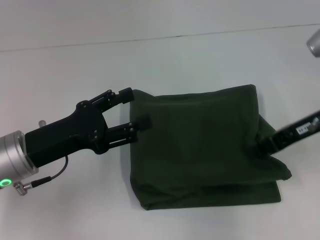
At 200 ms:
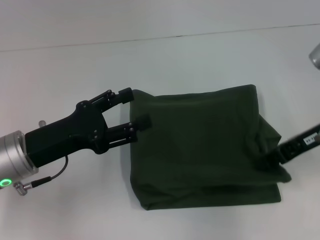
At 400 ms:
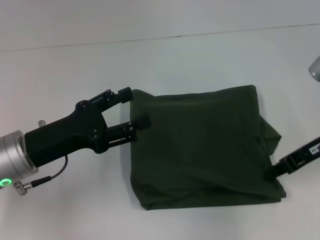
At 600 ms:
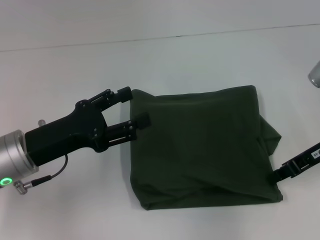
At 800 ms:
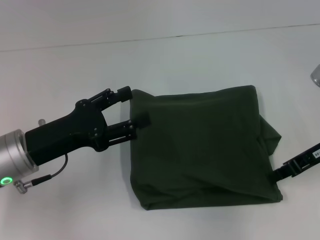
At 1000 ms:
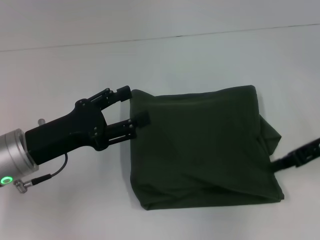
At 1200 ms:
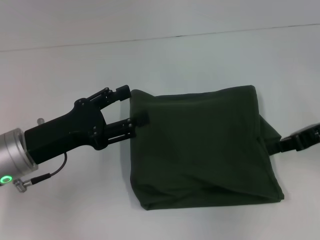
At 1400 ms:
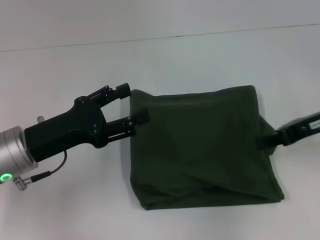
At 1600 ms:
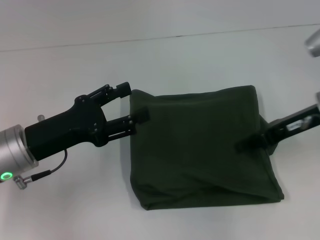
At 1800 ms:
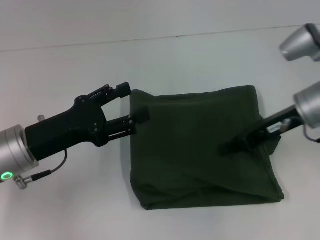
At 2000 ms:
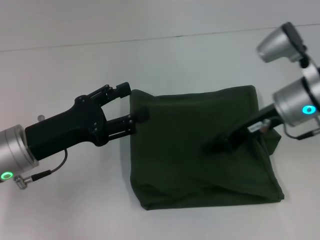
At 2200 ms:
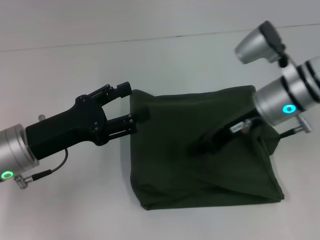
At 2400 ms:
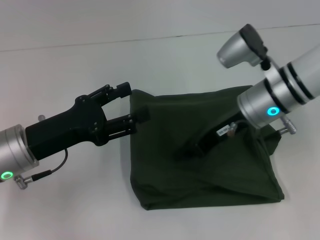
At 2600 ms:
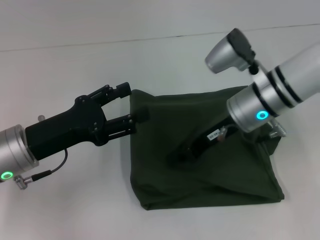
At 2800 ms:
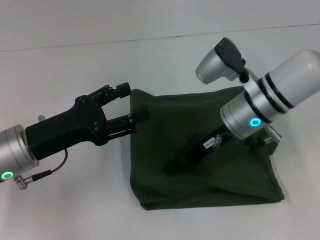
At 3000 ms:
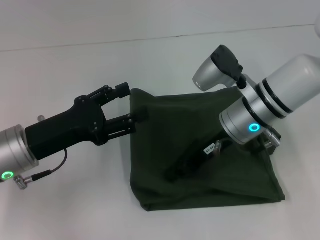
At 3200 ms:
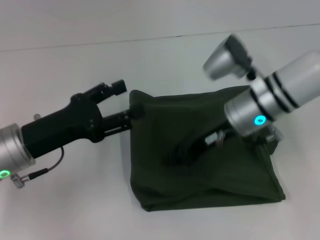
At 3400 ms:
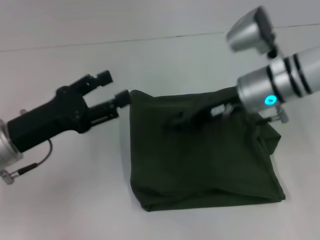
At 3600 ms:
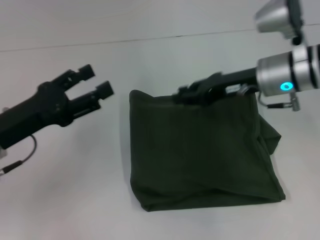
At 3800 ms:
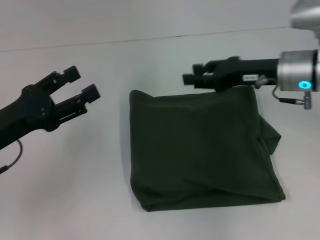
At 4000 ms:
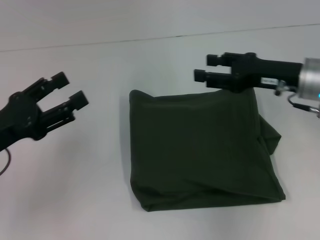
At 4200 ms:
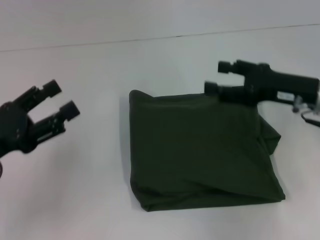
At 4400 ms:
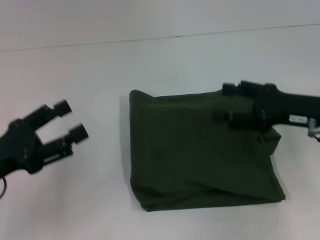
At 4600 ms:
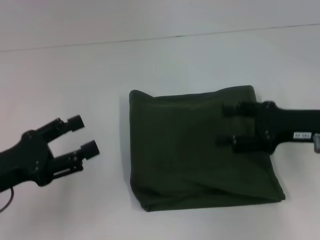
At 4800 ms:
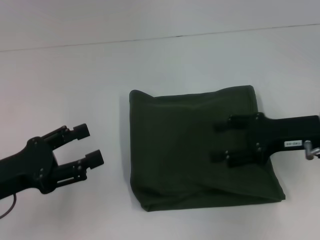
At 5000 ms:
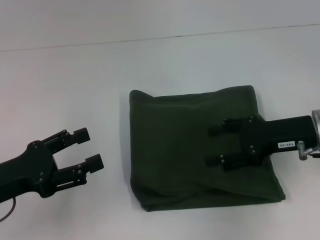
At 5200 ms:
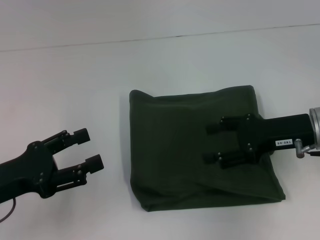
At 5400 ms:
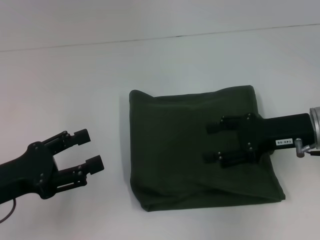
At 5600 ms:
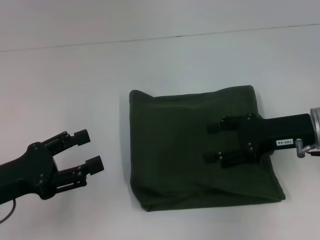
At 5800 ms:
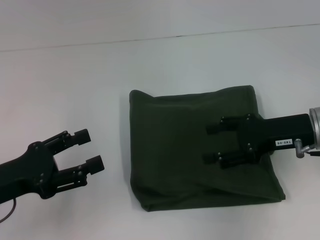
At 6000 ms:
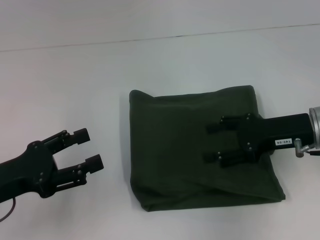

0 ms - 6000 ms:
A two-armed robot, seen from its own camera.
0 ms - 1600 ms: The grippers stay close to where they were, moving slightly.
1600 ms - 3000 ms: The right gripper shifts roughly 15 cm to the left.
3000 ms - 4400 ms: The left gripper goes approximately 5 cm to the left; the right gripper is displaced to the right and backward by roughly 15 cm, and opens up.
4400 ms - 6000 ms: The grippers move only a little.

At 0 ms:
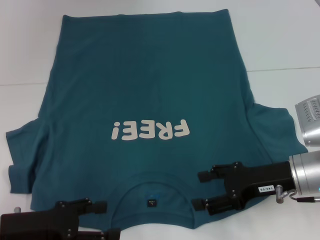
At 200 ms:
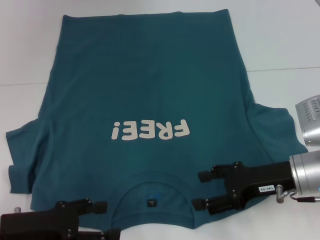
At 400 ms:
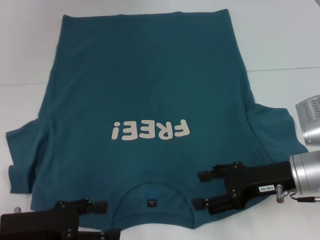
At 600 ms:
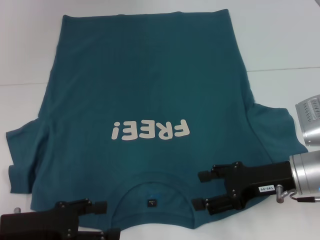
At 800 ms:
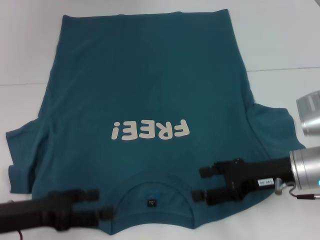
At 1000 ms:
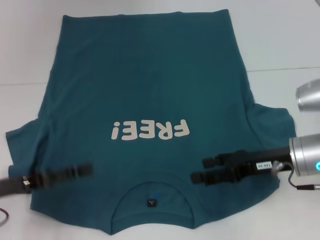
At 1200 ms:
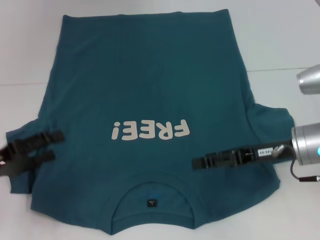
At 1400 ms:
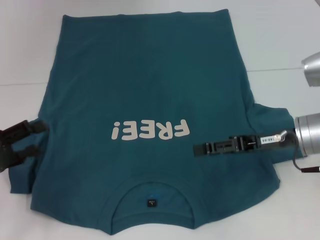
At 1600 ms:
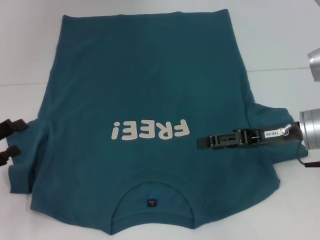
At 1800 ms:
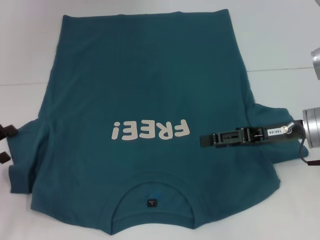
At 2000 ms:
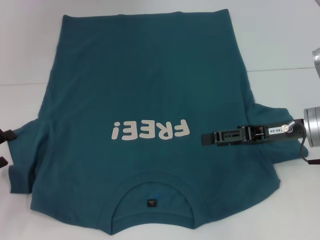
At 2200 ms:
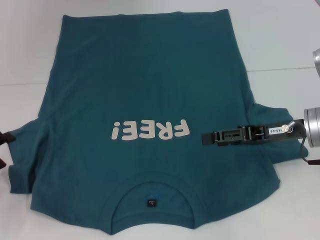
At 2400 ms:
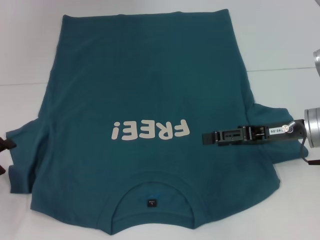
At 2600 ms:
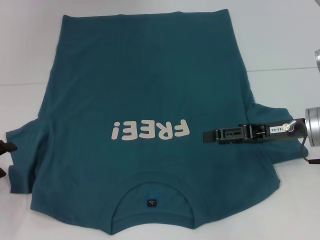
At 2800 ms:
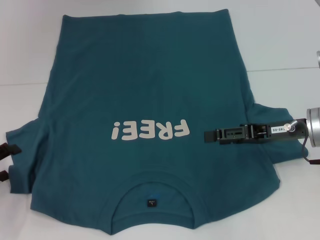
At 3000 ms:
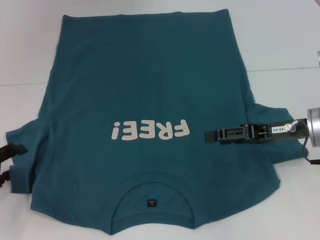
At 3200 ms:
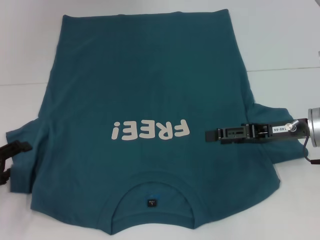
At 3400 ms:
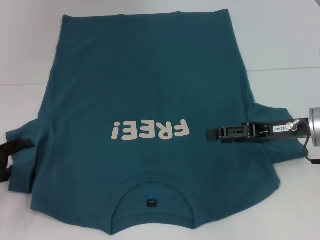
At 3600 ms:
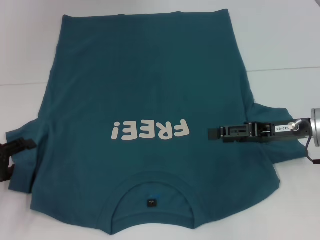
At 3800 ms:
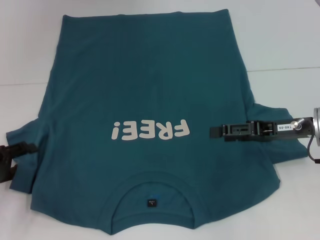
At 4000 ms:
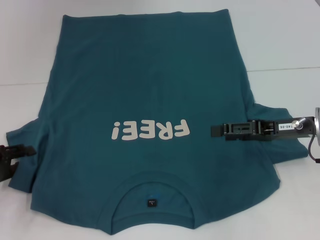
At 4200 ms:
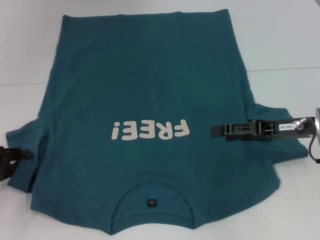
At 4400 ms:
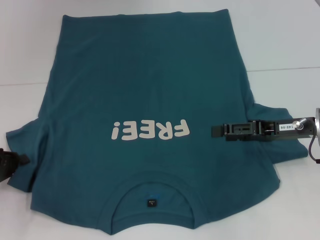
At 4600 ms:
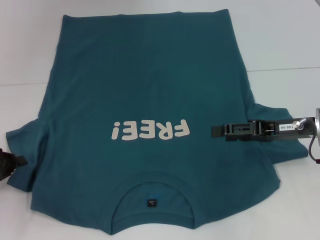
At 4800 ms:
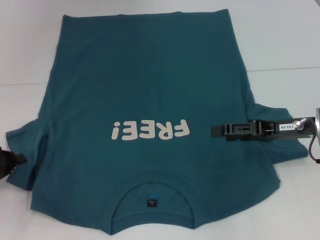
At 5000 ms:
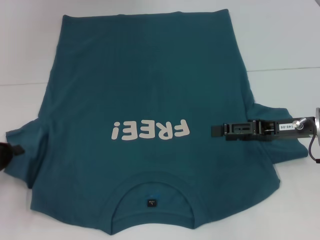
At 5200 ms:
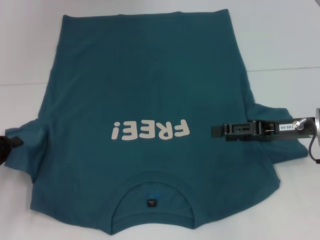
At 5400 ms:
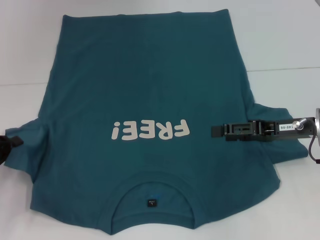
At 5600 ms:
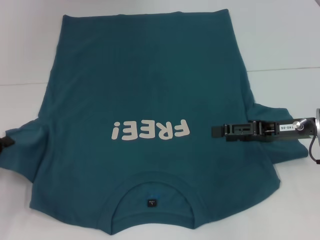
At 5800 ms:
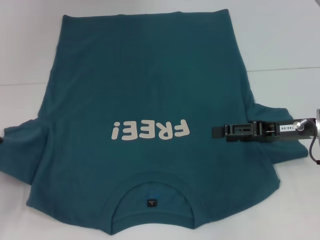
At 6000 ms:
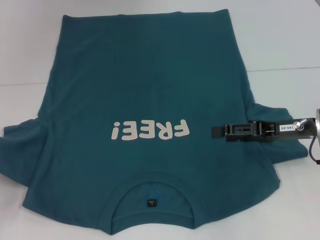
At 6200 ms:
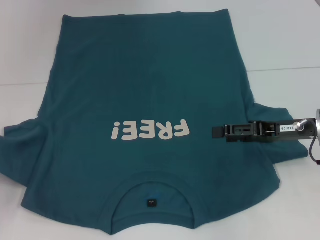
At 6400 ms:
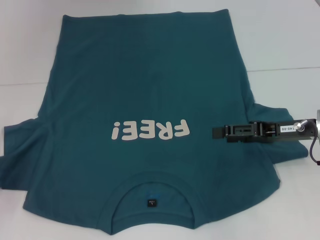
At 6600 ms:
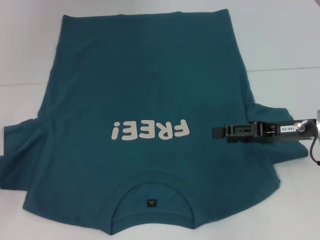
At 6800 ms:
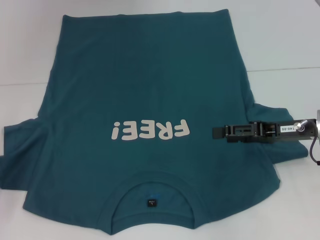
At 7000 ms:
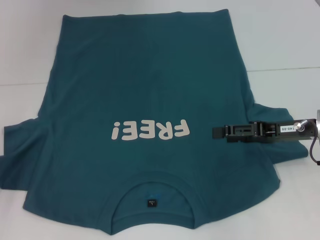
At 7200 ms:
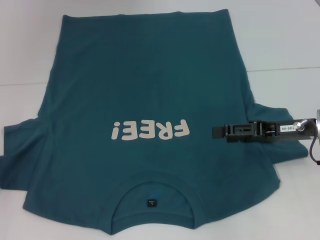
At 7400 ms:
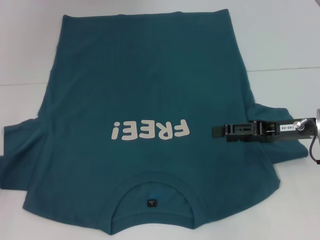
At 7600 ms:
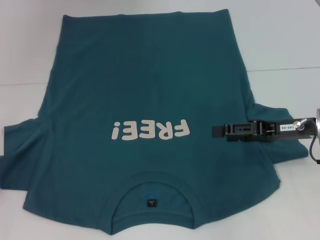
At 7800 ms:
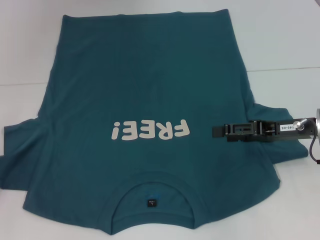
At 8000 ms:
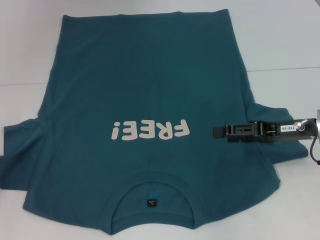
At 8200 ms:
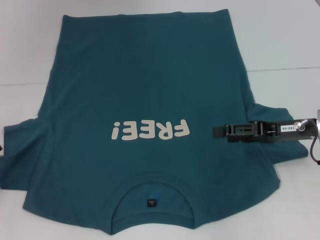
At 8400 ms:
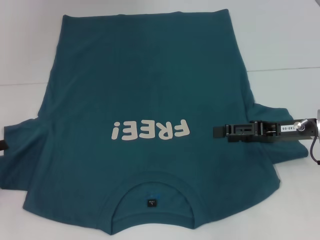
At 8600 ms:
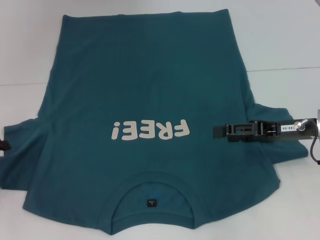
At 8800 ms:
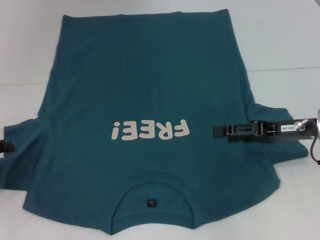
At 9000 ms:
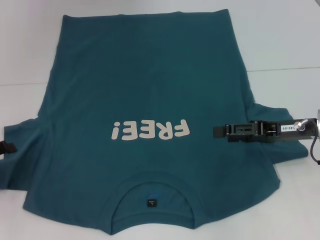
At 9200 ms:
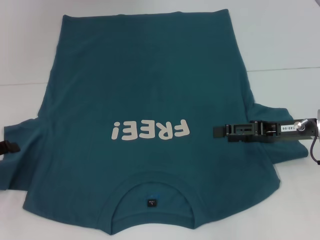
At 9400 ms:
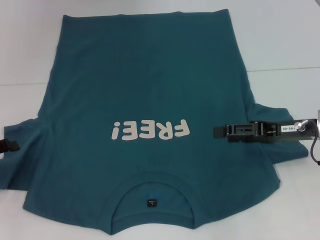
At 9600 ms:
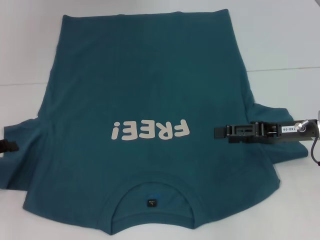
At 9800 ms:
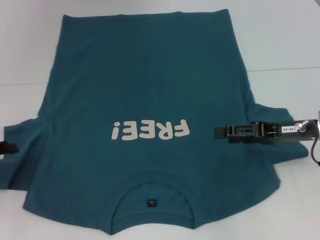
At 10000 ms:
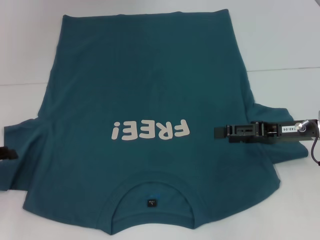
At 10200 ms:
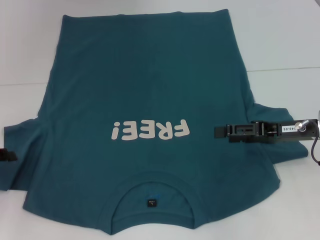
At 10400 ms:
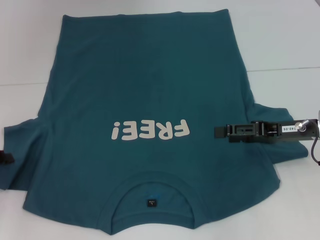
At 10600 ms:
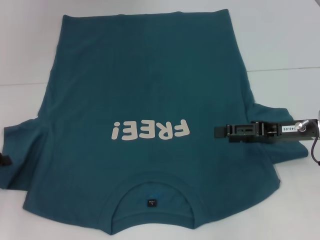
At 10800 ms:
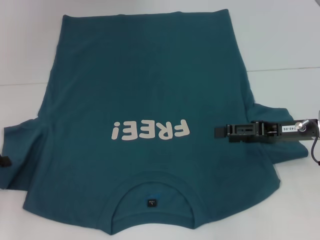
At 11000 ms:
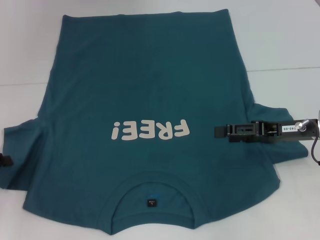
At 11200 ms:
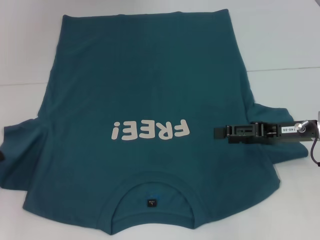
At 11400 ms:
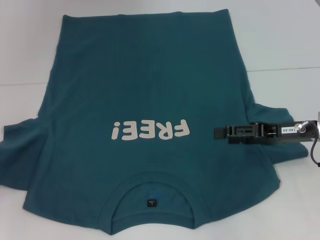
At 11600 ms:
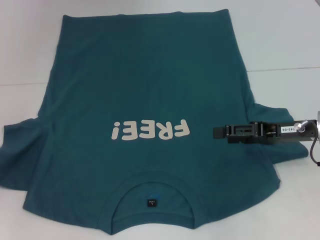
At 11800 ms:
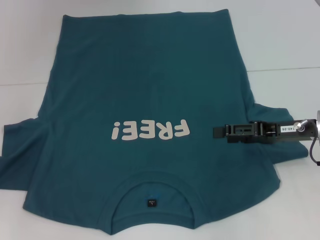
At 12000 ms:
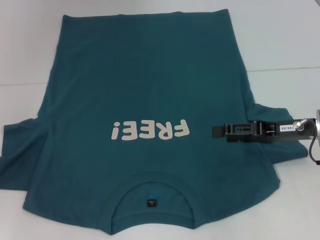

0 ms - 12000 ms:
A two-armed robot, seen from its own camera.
0 ms - 1600 ms: The right gripper ends up approximately 5 cm from where it was; the left gripper heads to the left, covering some 10 cm.
1600 ms - 3000 ms: The grippers make only small movements.
3000 ms - 4400 ms: The left gripper closes up.
4400 ms - 6000 ms: The grippers stay close to where they were, moving slightly.
6000 ms - 7600 ms: The left gripper opens its fingers.

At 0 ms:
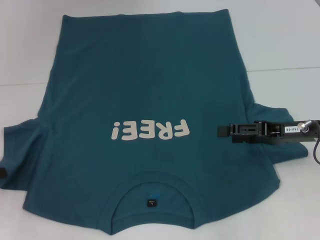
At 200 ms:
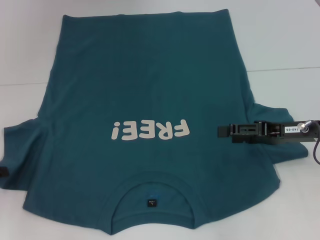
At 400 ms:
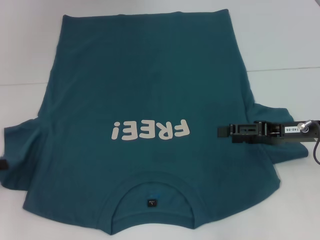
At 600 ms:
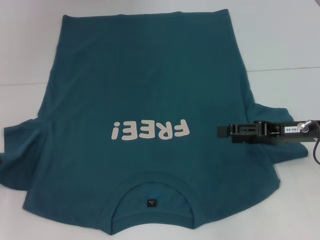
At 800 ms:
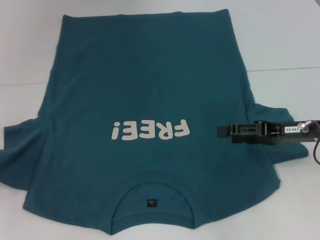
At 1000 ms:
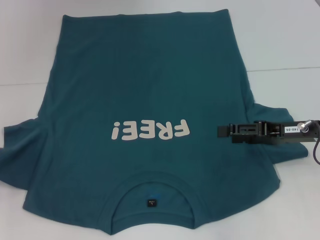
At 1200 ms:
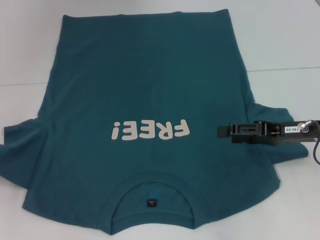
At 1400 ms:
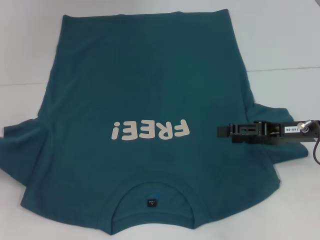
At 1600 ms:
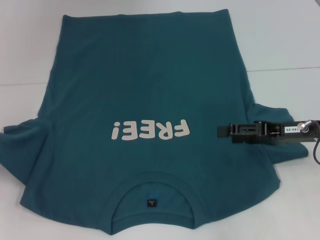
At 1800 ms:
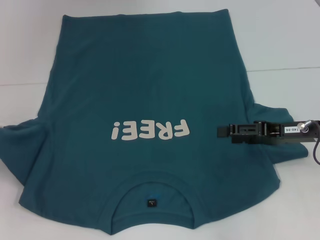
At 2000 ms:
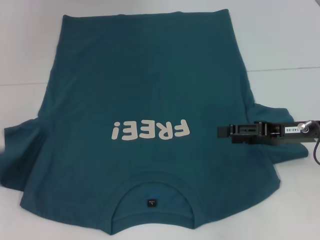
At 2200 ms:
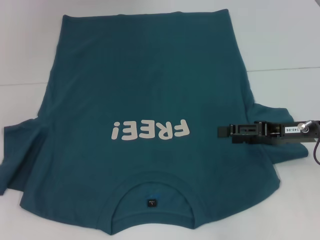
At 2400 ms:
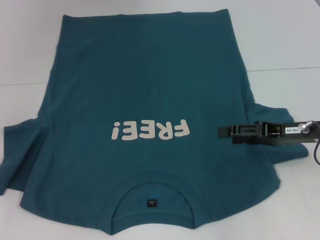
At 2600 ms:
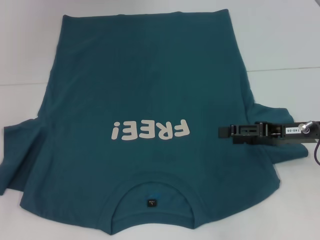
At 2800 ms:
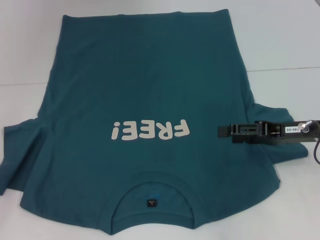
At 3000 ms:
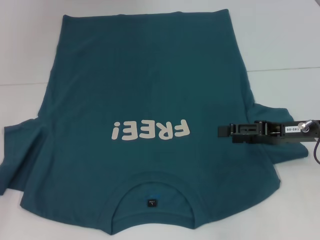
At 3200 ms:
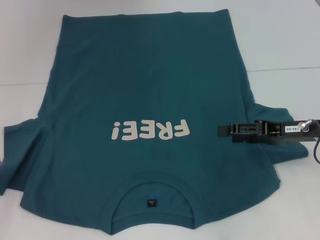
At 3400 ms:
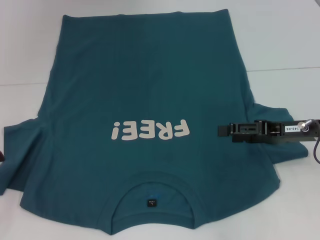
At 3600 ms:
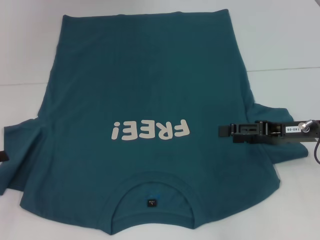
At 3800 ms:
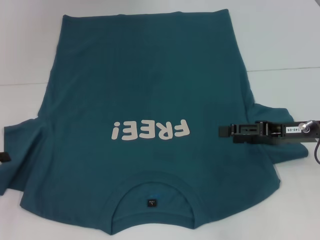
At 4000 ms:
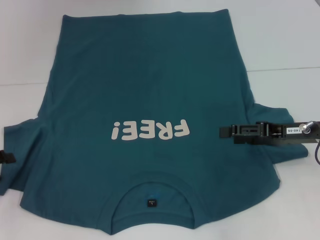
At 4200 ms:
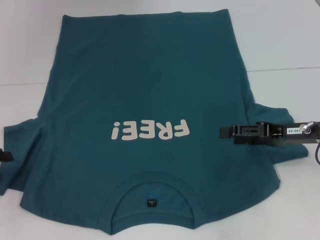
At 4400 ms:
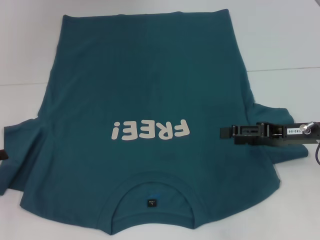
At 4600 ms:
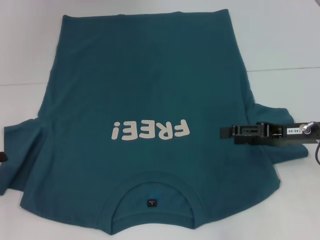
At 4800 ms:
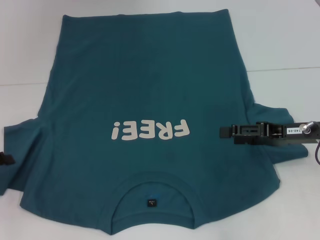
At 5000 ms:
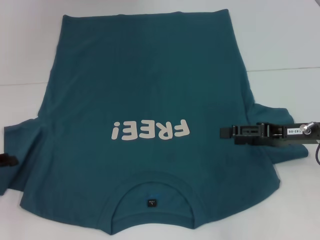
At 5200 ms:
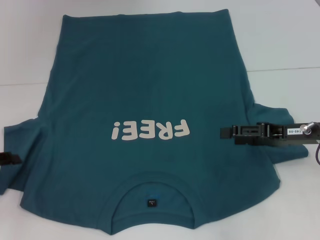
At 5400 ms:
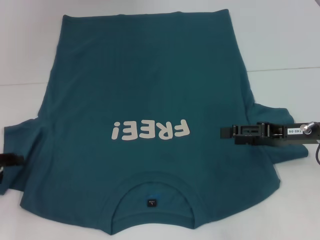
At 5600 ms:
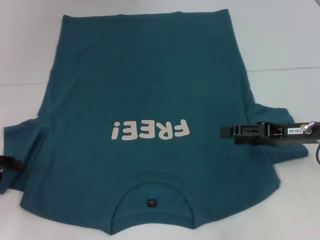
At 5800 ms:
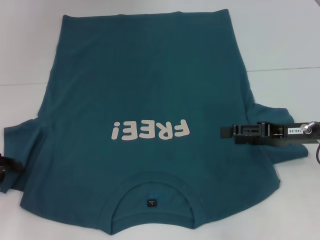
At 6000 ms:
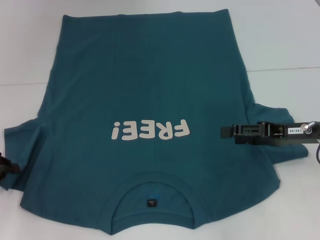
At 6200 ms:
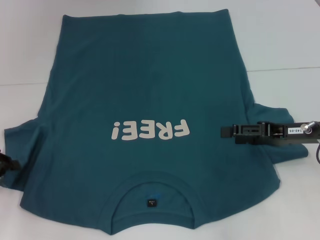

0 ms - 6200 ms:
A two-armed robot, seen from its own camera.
0 ms - 1600 ms: The grippers move only a little.
1600 ms - 3200 ms: The left gripper opens its fingers.
3200 ms - 4600 ms: The grippers move only a little.
